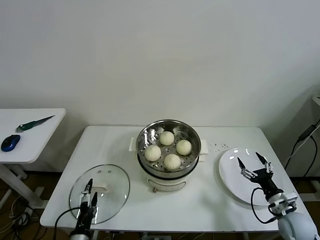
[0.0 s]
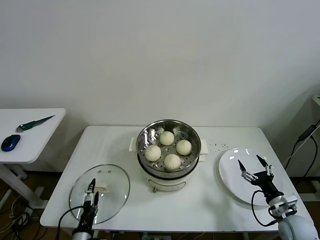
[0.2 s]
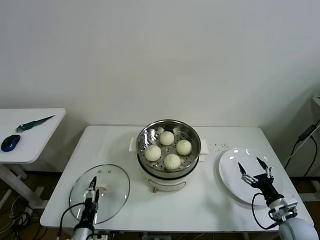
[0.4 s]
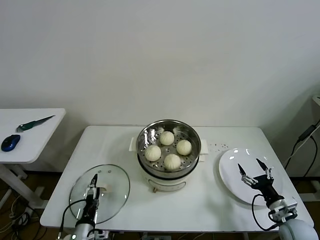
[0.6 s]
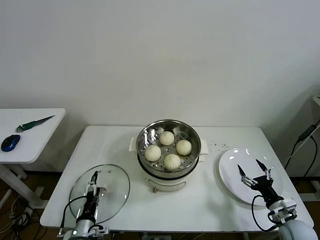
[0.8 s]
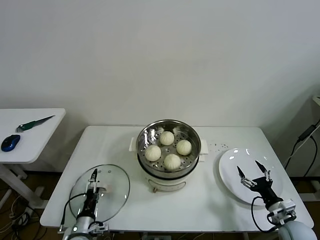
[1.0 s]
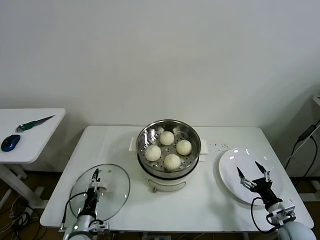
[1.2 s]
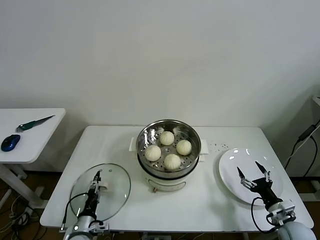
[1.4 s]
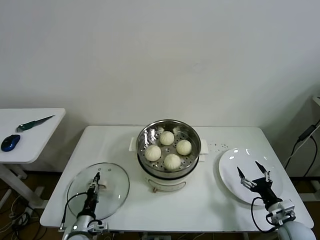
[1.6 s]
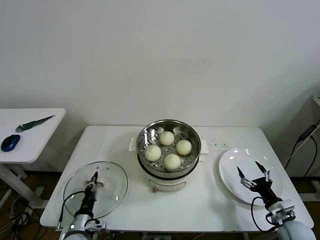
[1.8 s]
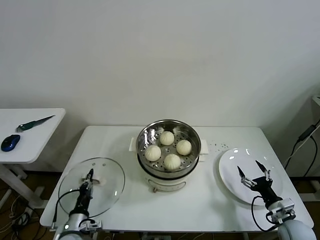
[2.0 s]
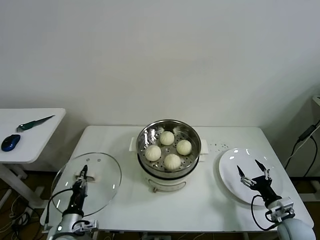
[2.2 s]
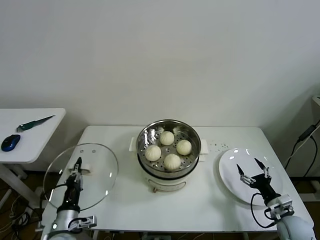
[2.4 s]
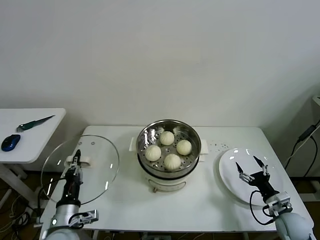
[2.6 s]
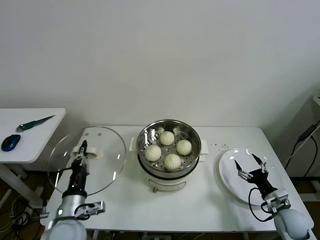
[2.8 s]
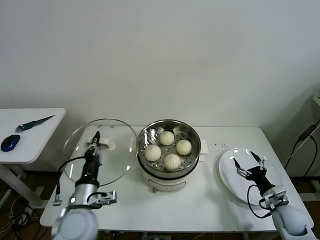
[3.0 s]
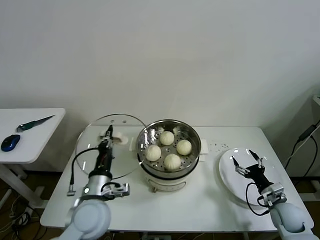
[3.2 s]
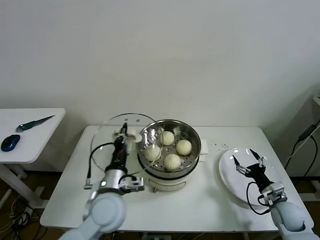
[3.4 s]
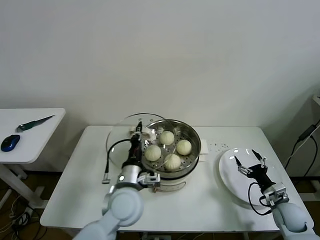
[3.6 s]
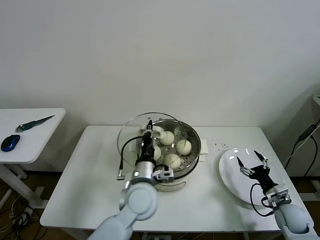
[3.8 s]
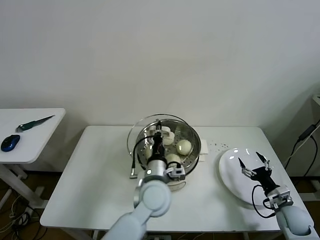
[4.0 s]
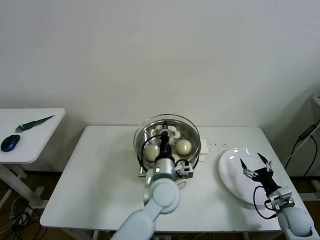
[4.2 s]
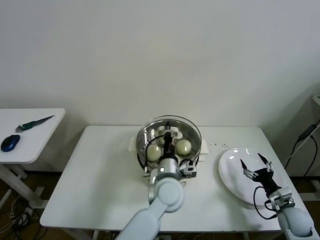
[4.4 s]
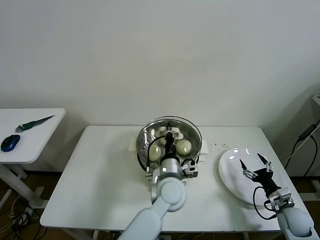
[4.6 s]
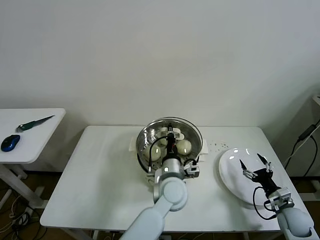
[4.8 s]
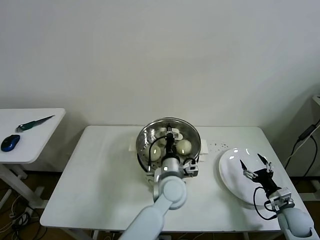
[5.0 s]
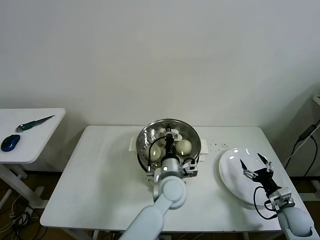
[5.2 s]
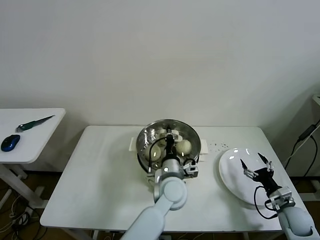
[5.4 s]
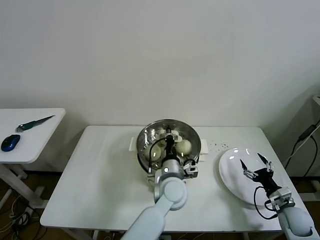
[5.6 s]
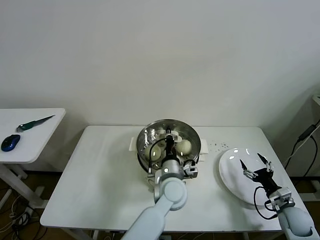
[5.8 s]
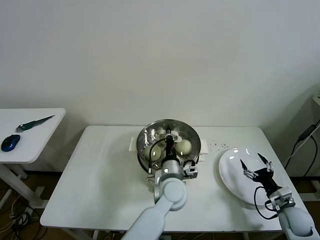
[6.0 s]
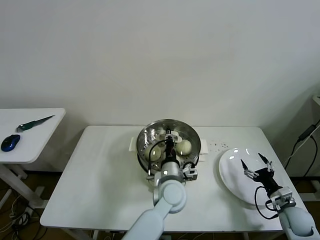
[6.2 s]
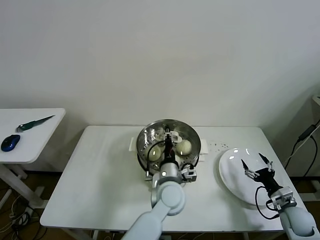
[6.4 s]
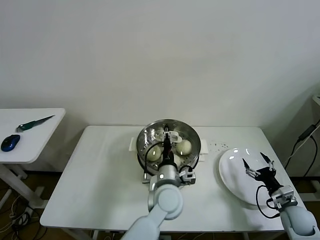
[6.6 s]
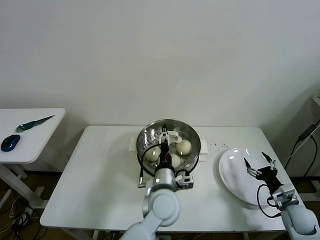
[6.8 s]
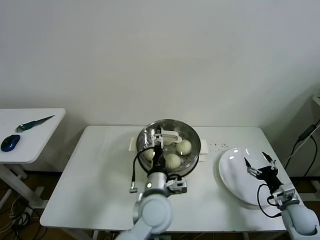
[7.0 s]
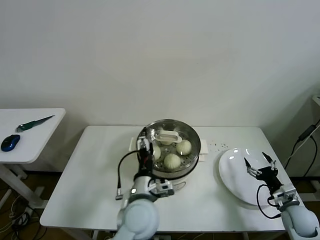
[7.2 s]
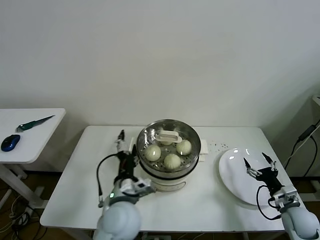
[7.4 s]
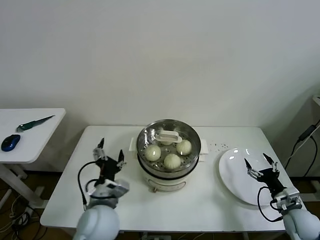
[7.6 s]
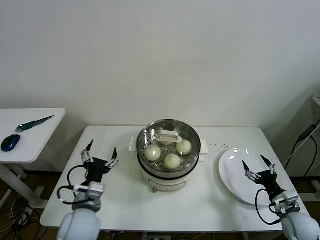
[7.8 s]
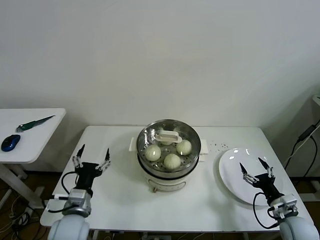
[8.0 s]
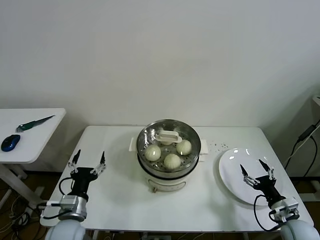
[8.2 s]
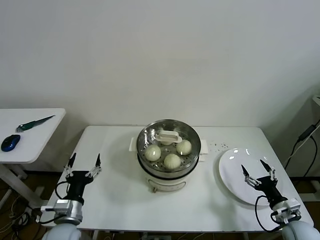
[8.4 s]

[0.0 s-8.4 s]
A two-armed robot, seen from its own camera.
Task of the whole recording: take steamed baozi put them in steamer then cover it.
Step, 2.0 to 6.6 s: Place the pot lid on the steamer with left gripper.
0.0 to 1.4 s: The left gripper goes about 10 cm forward and downward, and closes up.
1.4 to 2.8 s: The left gripper goes approximately 15 cm upward, and closes.
2.8 to 4.2 s: The left gripper travels to the right and forward by approximately 30 cm.
4.2 to 5.6 s: The left gripper shifts by some 5 cm.
5.6 to 7.0 s: The left gripper is displaced backward by roughly 5 cm, and opens its fingers.
7.0 to 8.4 s: The left gripper moves to the left, about 25 cm. Meanwhile the right gripper travels backward by approximately 5 cm.
